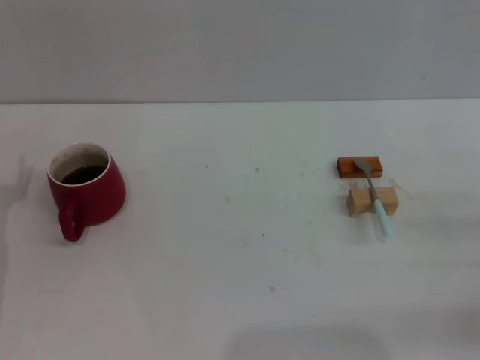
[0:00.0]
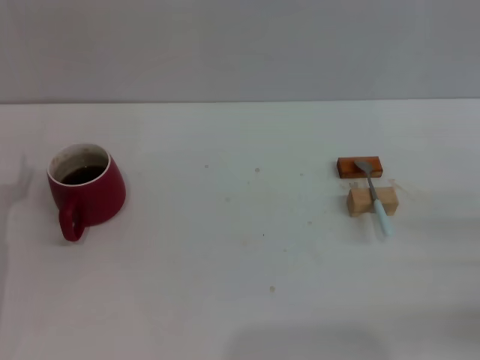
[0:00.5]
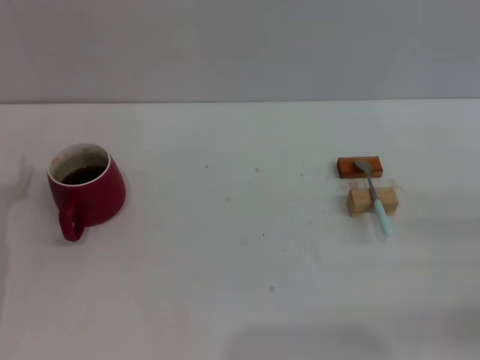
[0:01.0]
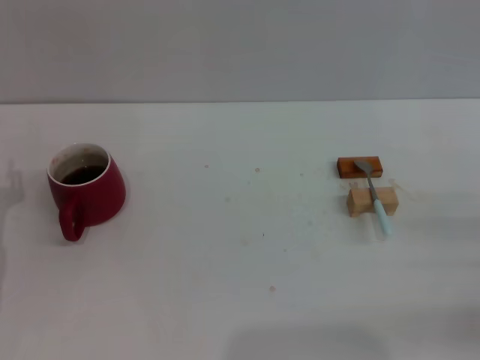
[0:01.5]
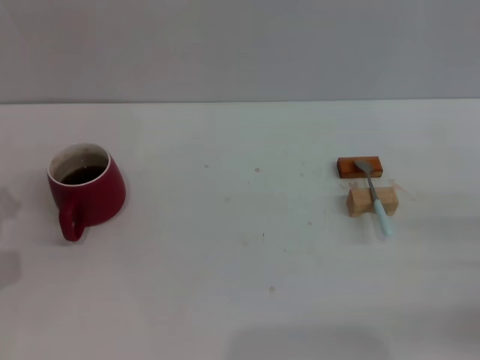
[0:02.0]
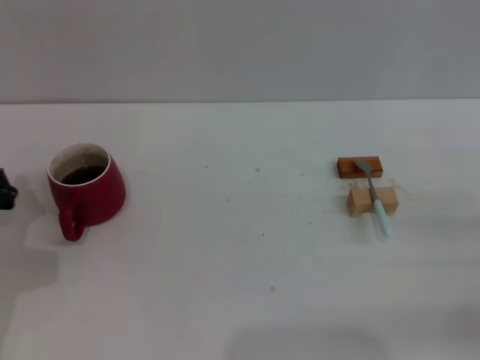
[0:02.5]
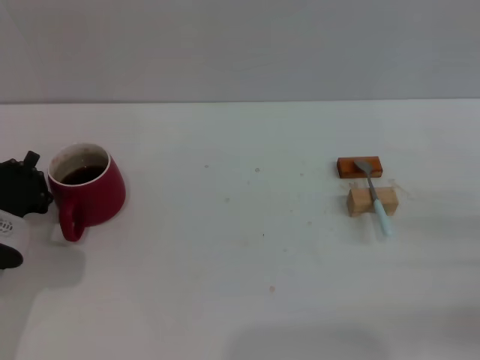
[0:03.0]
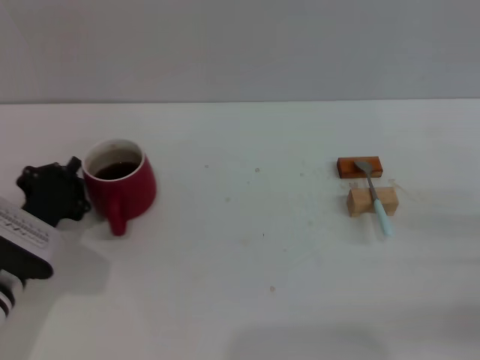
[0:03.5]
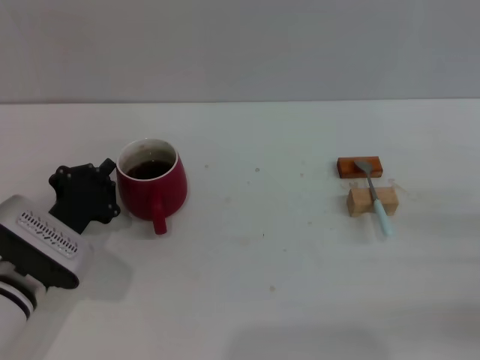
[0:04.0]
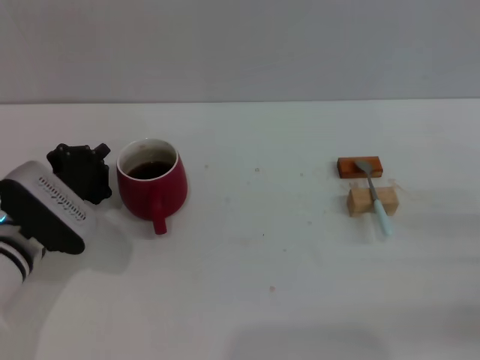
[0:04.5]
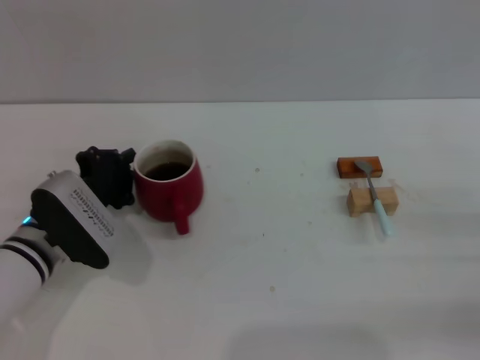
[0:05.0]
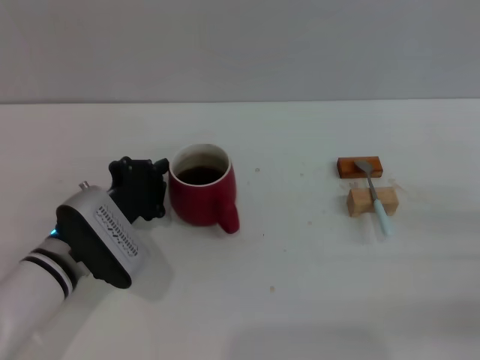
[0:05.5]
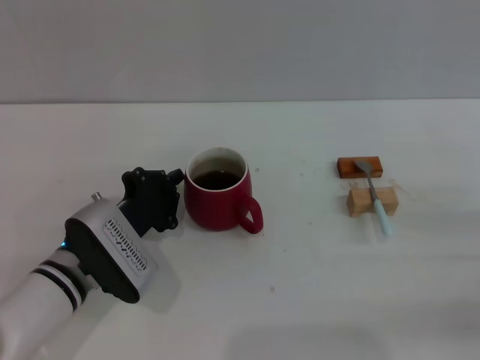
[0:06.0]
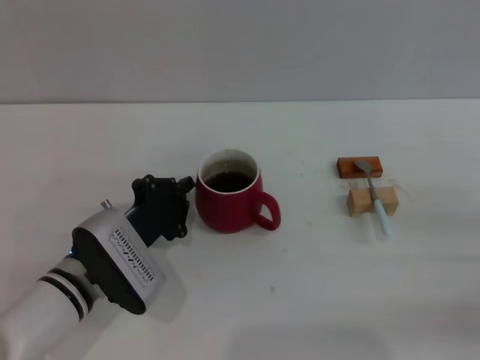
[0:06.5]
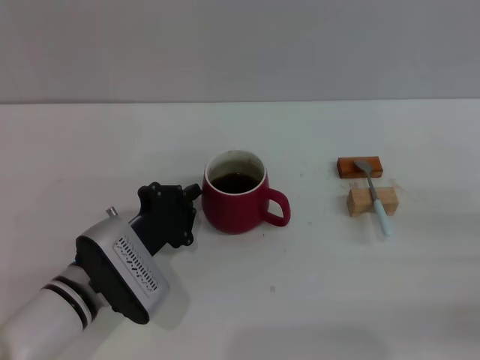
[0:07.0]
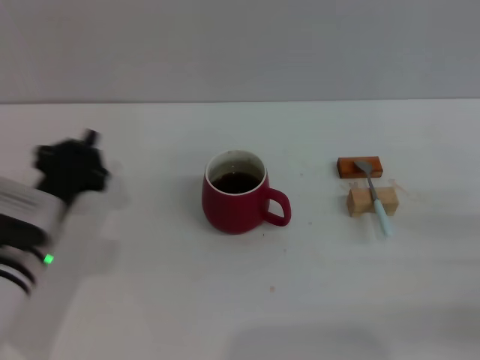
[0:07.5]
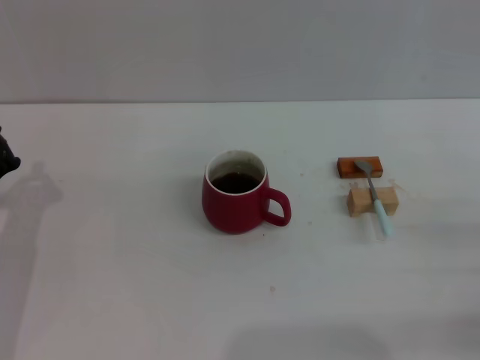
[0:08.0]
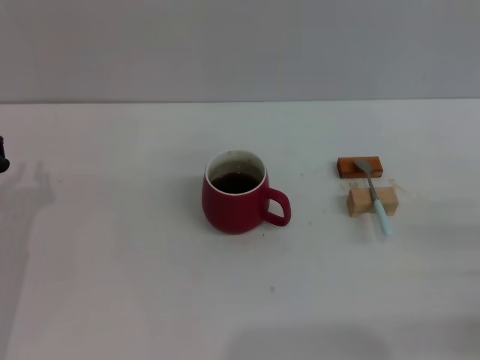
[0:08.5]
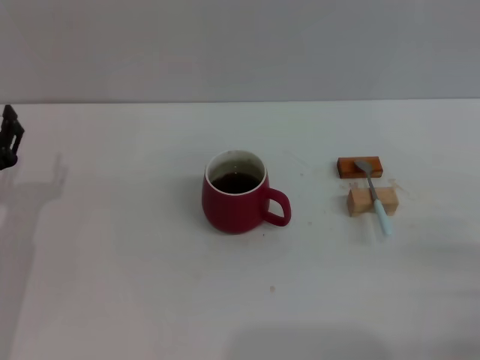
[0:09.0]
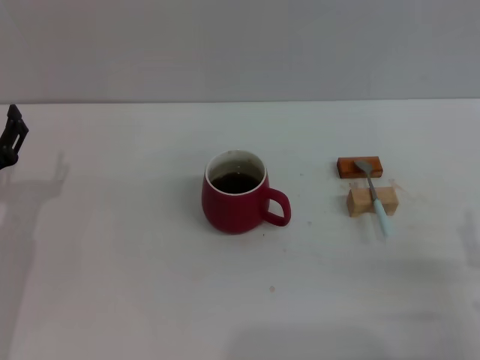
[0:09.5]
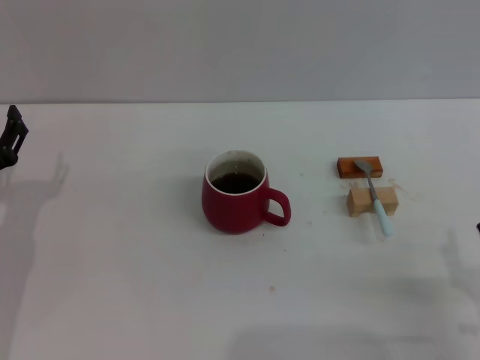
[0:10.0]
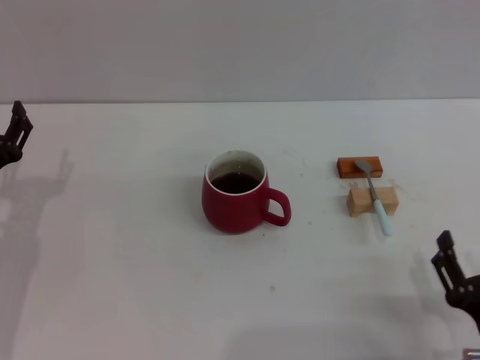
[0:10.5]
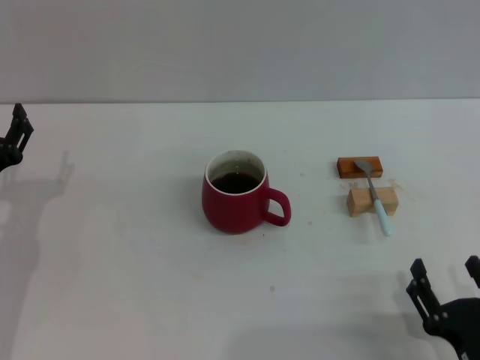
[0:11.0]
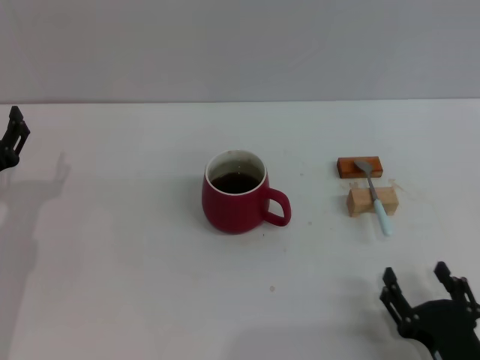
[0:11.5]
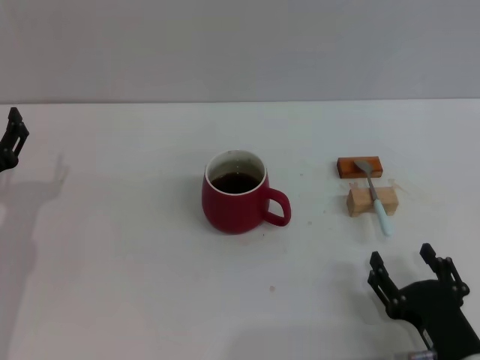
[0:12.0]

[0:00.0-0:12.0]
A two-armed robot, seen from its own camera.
Task of the whole recording: Move the red cup to the center, lift the blue spoon, stir it three times in the cup, and put the spoon into the cup.
Step, 0.0 to 7.5 s: Move the cup with coffee to the center of view with the left gripper.
2.0 to 4.0 s: The left gripper is displaced to the right by about 10 cm.
4.0 to 6.0 s: The left gripper moves roughly 5 cm.
6.0 to 8.0 s: The left gripper heads to the left, covering about 10 cm.
10.0 to 12.0 s: The right gripper heads to the left, covering about 5 cm.

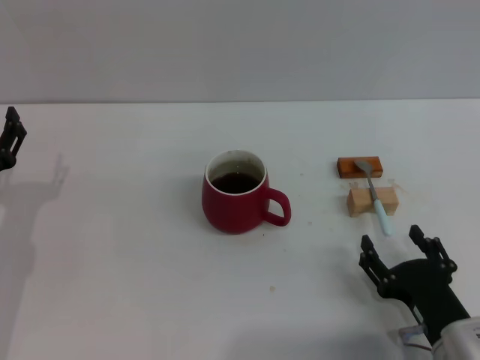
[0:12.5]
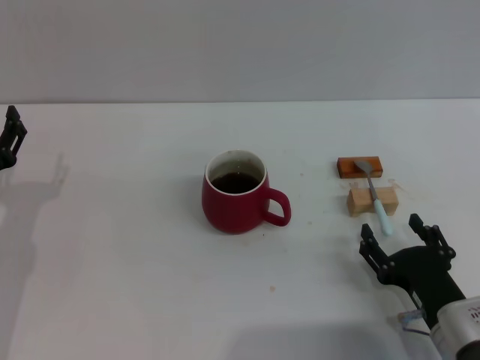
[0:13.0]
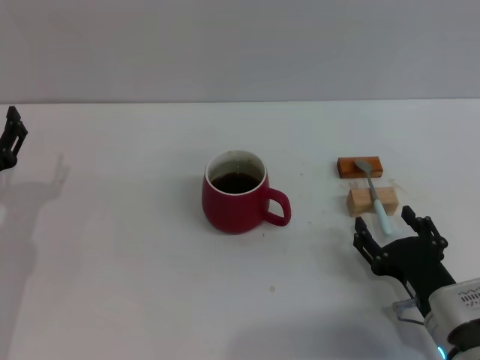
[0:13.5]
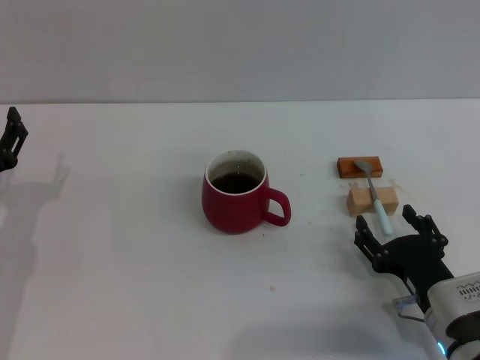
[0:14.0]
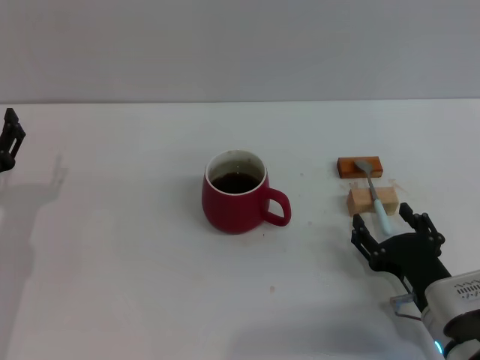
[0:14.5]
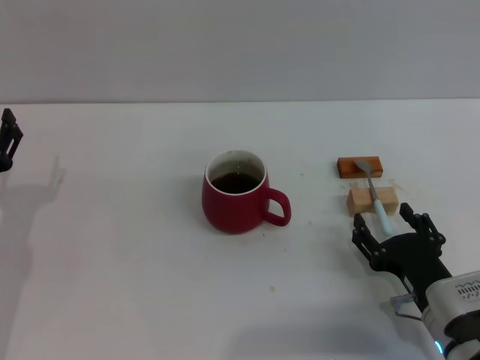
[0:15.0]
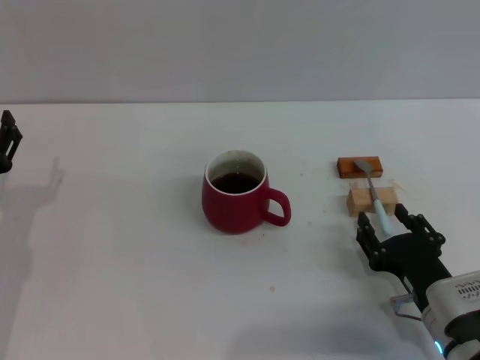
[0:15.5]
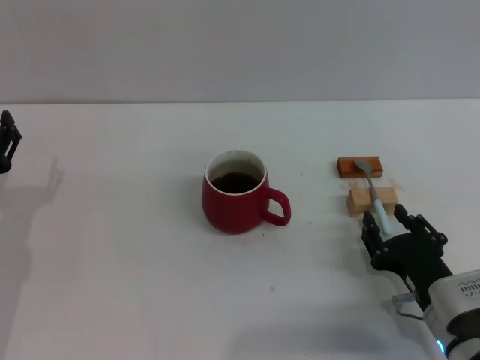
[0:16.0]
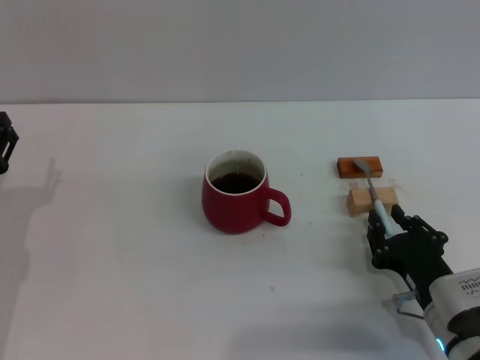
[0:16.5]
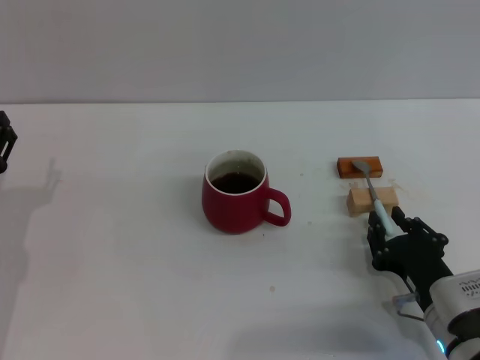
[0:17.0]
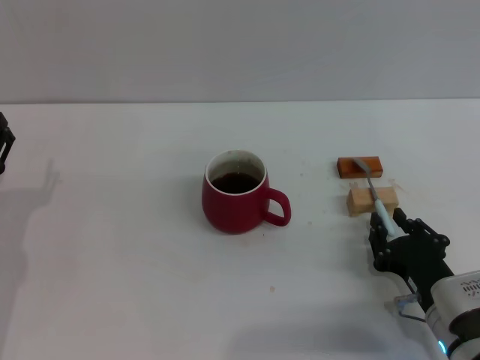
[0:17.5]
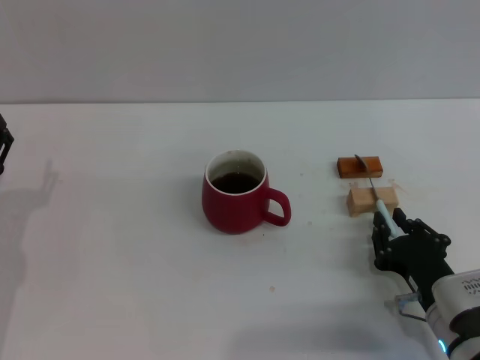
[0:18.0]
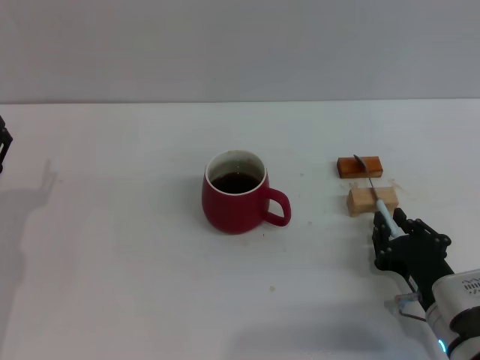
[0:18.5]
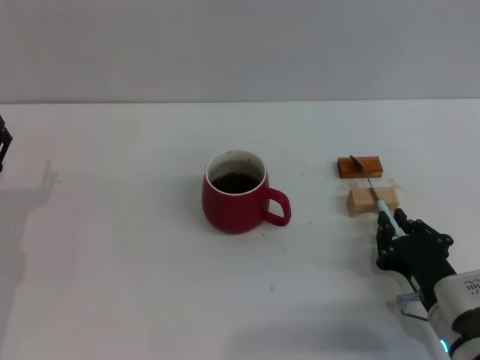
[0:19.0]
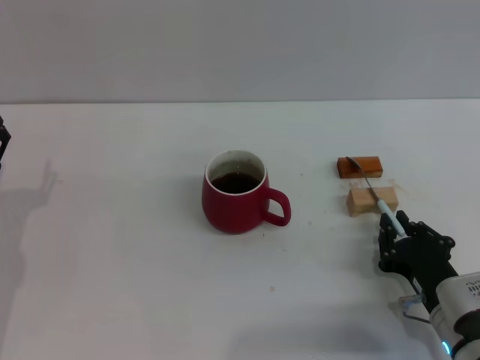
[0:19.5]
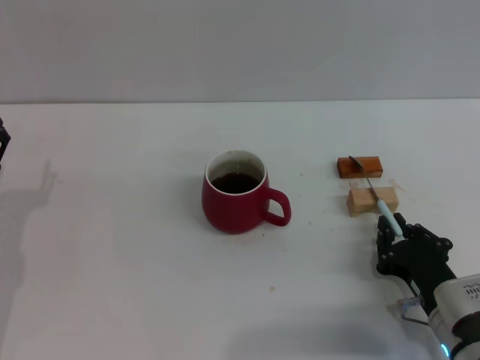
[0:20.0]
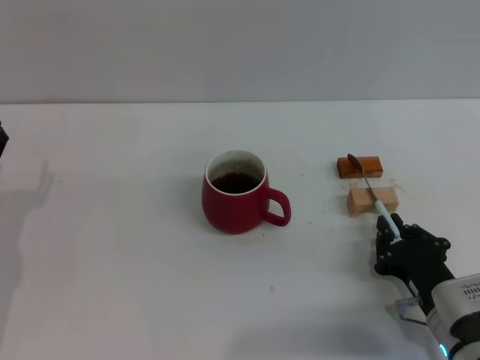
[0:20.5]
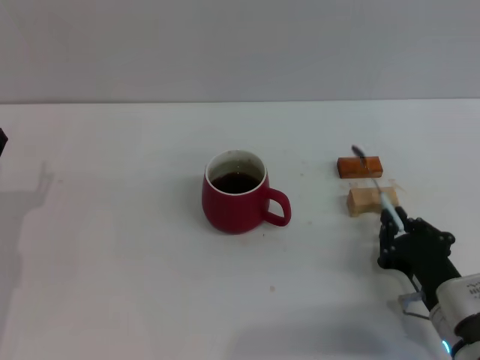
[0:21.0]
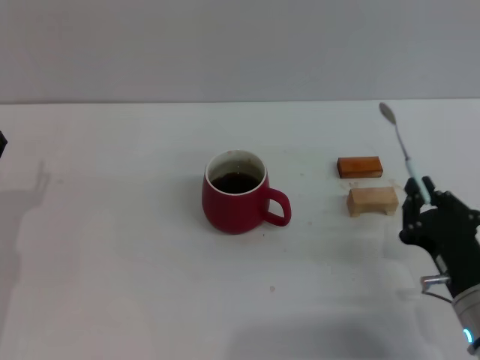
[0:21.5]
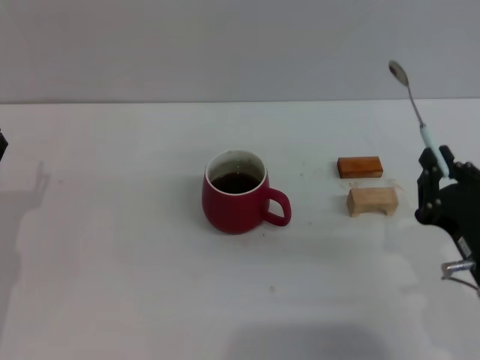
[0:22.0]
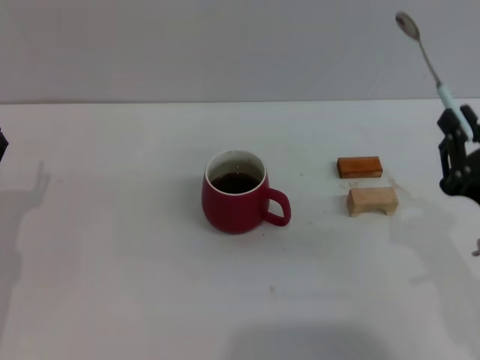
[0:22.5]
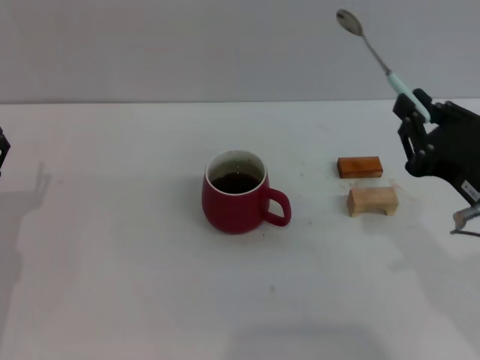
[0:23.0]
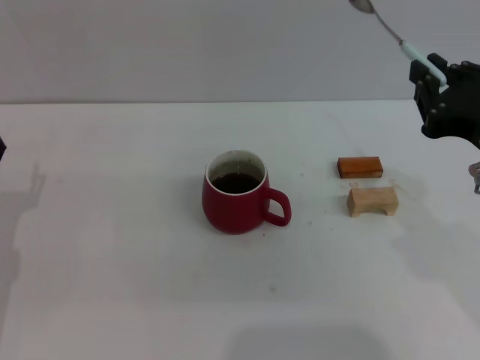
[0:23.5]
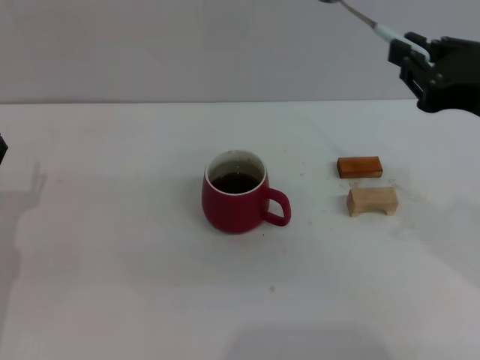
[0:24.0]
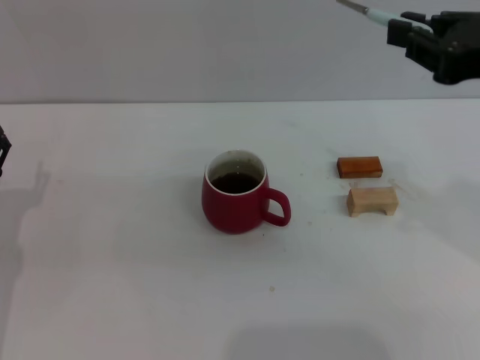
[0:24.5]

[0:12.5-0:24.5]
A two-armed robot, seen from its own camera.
Task of the whole recording: Move the red cup to the center, lift the blue spoon, stir it three times in the cup, and put the spoon into the cup.
Step, 12.5 to 21.5 s: Pick up the spoon with the right gripper.
12.5 to 14.5 s: There are only small adjustments of the grippers.
14.5 to 16.5 s: The right gripper closes its fingers.
16.5 to 20.5 s: Both grippers stay put.
20.5 to 22.5 s: The right gripper moves upward, about 15 cm.
22.5 to 24.5 s: The right gripper heads upward, covering approximately 15 cm.

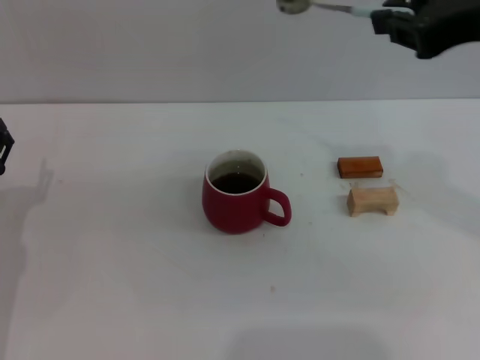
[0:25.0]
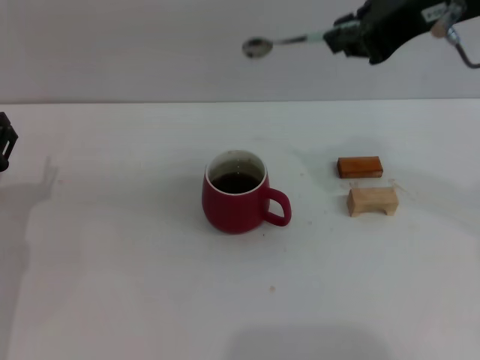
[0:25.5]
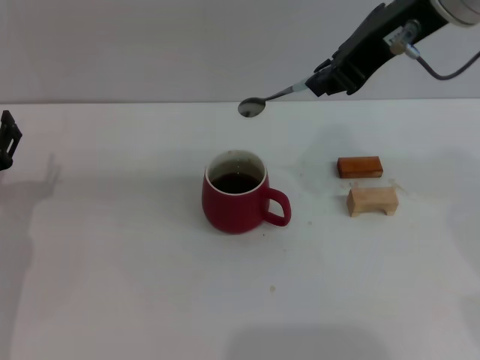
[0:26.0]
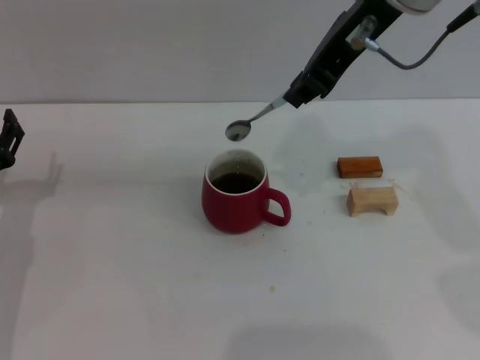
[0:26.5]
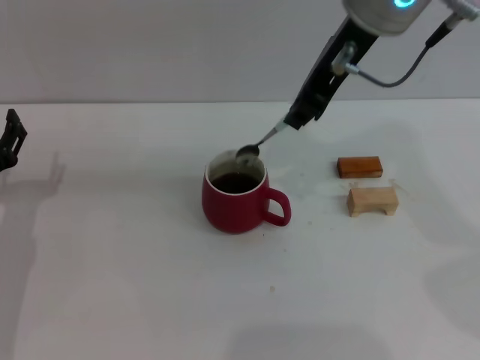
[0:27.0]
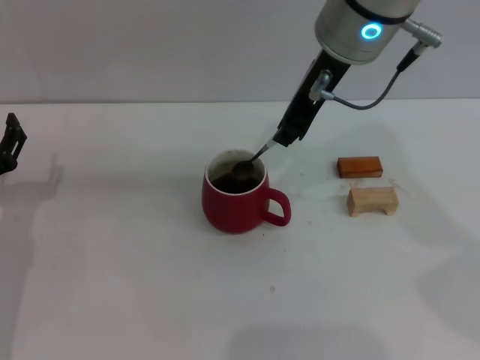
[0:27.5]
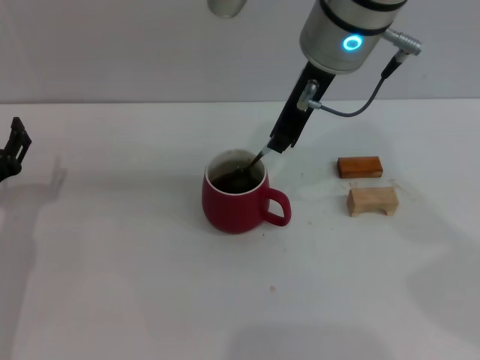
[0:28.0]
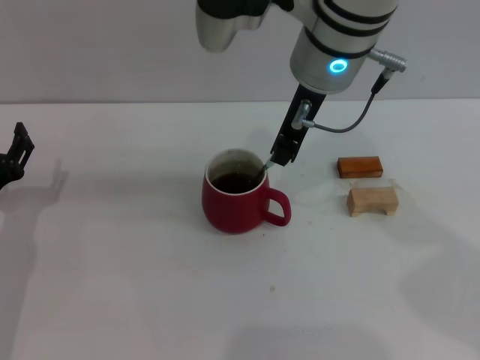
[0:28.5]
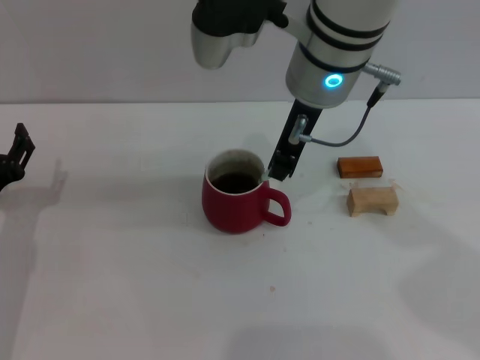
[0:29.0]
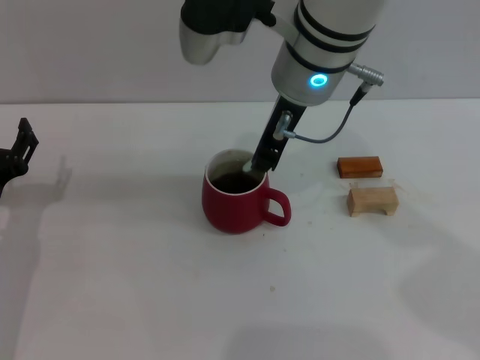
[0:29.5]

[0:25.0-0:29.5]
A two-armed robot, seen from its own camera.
Task of the whole recording: Move the red cup to the center, lift the blue spoon, stir it three times in the cup, and put the spoon into the cup.
25.0 to 27.0 s: The right gripper is displaced to the left and forward by about 15 cm.
27.0 to 29.5 s: The right gripper goes some 5 cm downward.
